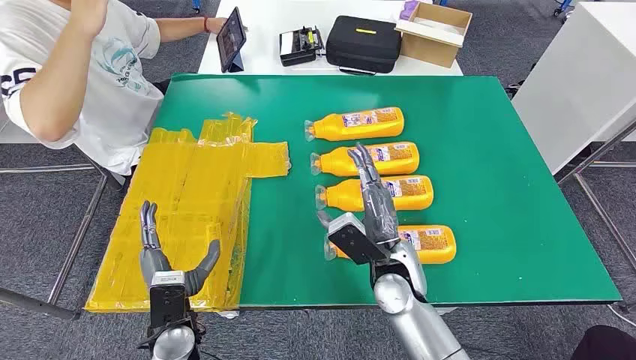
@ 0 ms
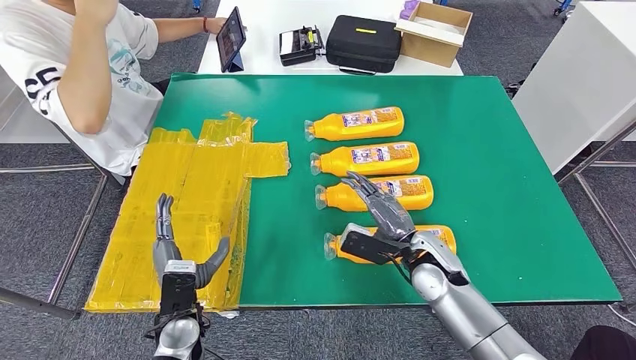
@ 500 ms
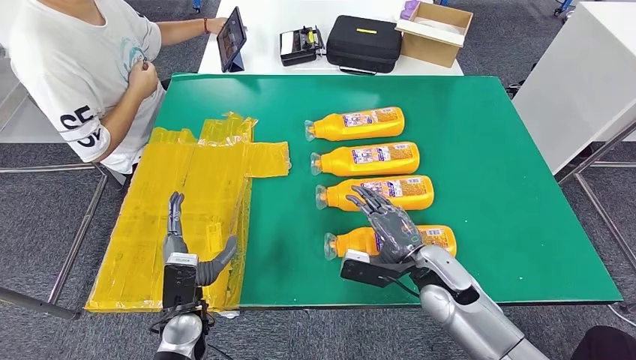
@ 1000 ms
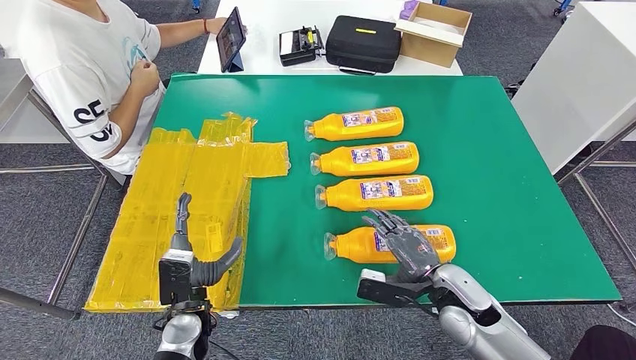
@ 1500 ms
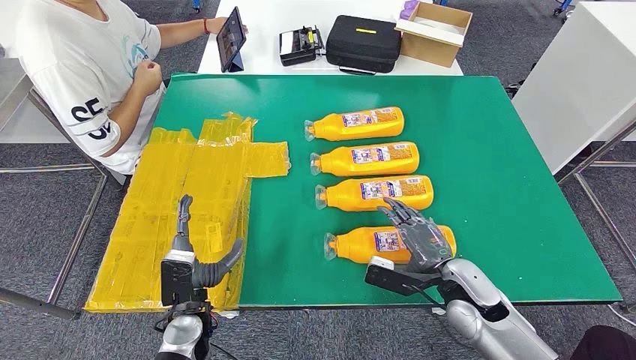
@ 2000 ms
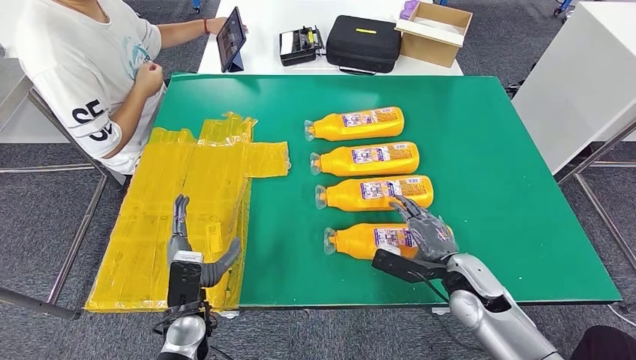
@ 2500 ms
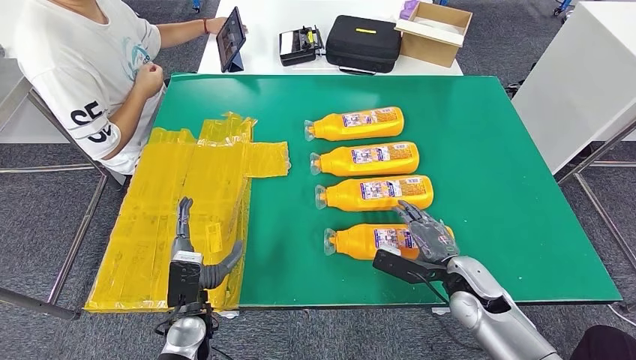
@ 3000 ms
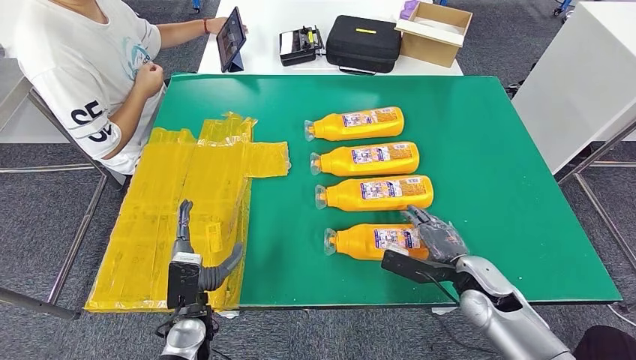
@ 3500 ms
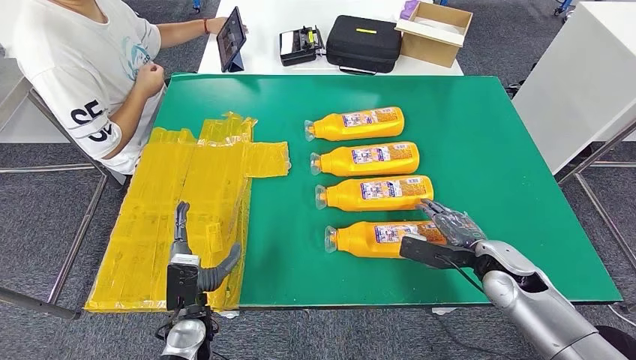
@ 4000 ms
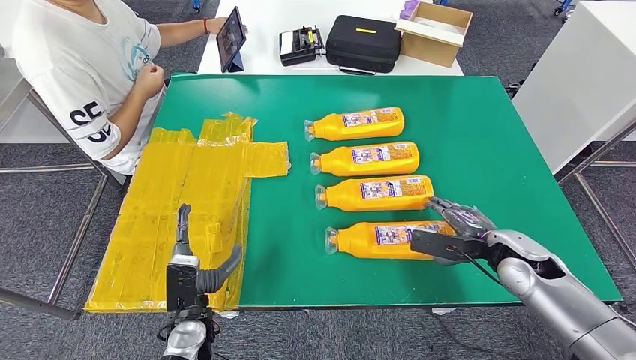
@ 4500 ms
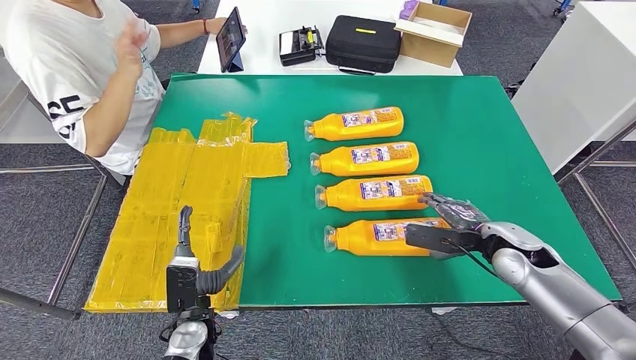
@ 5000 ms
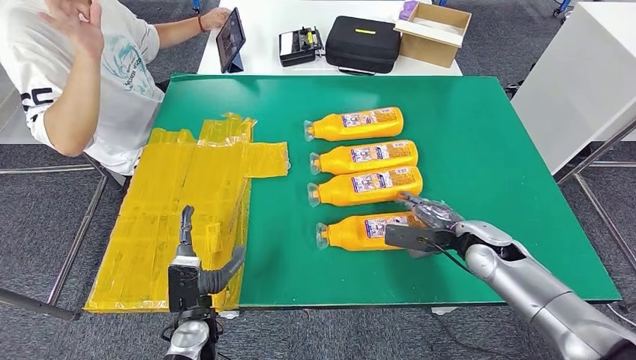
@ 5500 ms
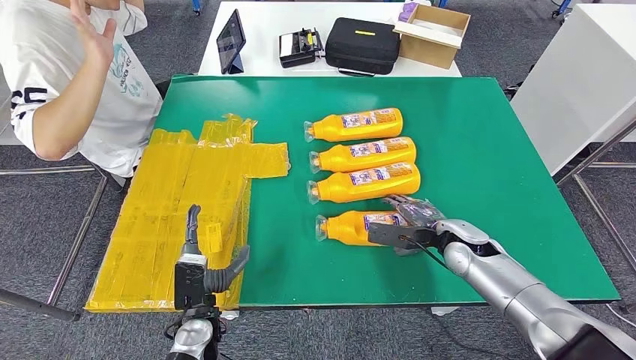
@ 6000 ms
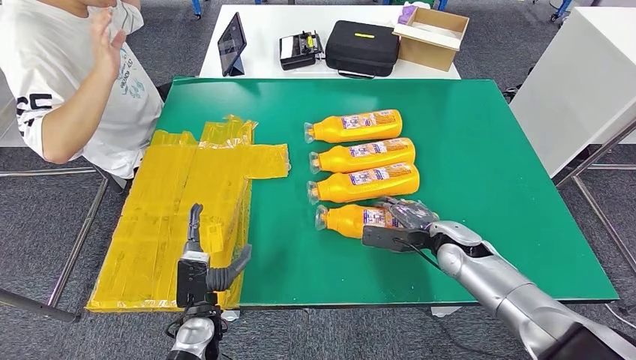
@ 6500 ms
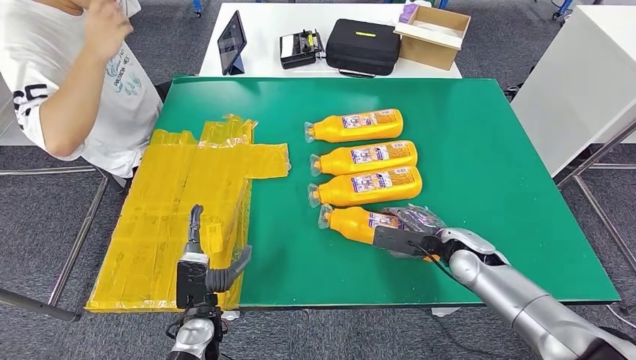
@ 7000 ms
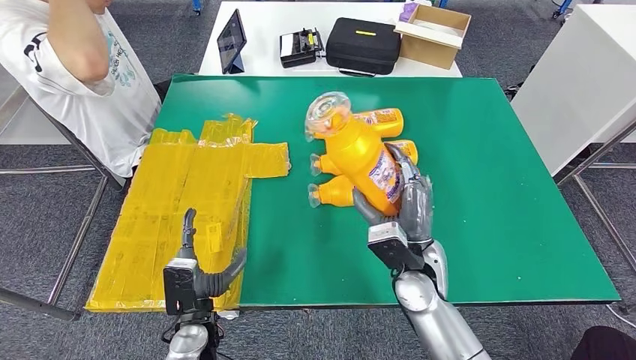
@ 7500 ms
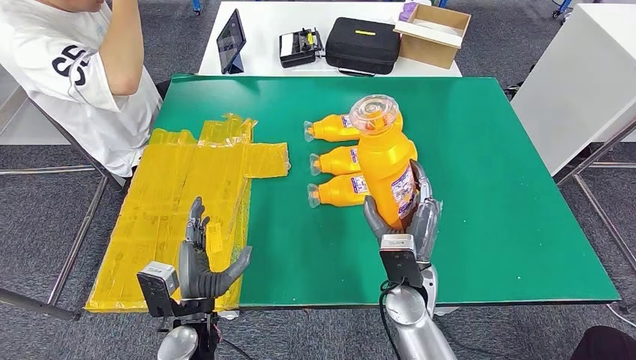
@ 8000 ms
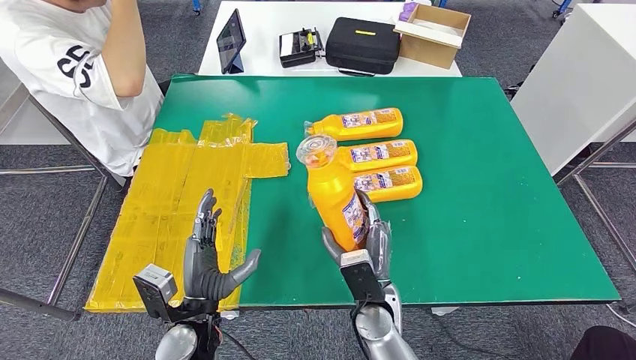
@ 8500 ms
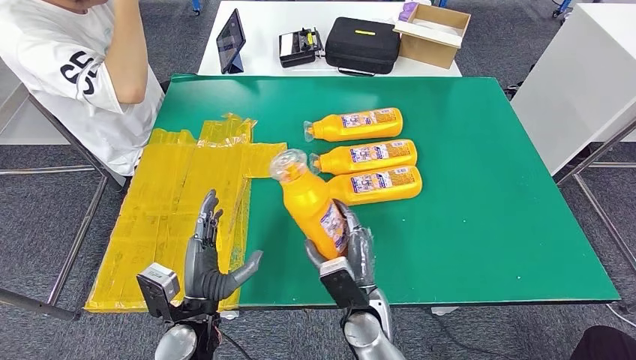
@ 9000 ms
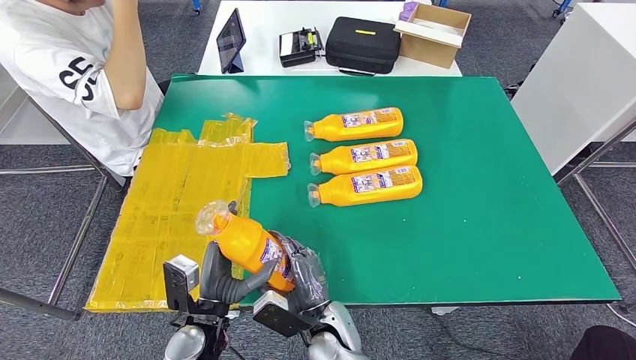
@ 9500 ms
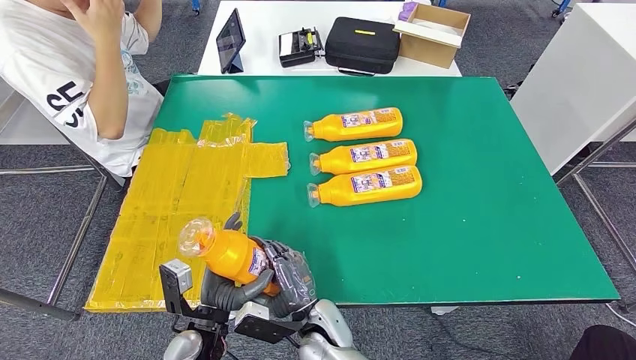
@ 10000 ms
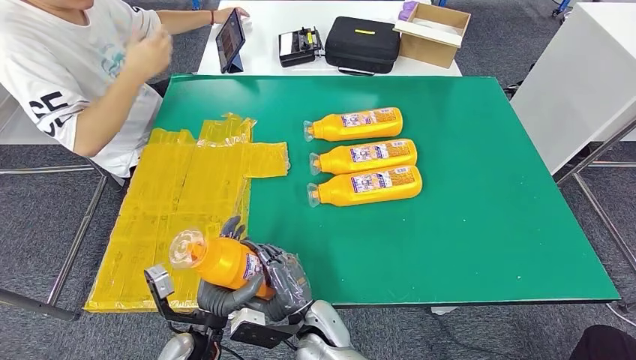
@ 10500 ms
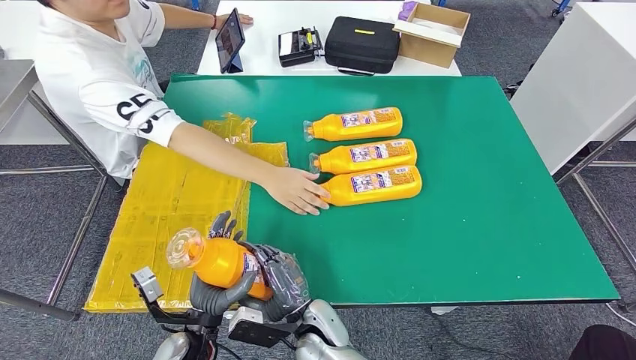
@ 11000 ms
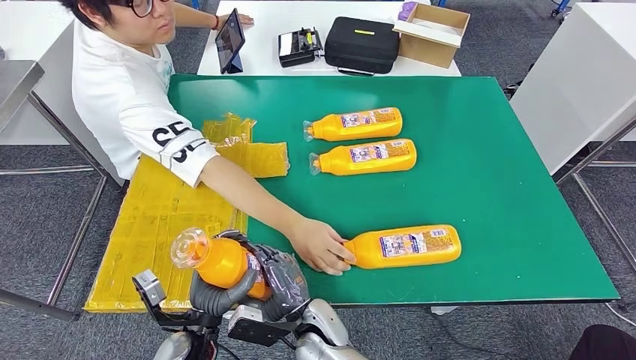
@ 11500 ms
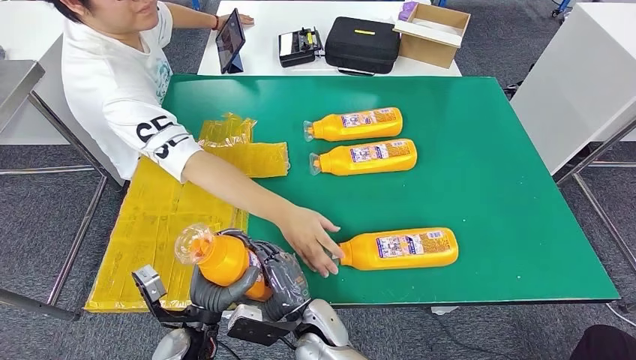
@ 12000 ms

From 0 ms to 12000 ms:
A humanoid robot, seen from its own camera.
Step, from 0 ms to 10500 ms: Take the fast-moving consumer goods bottle from the table.
From 2000 ms to 4000 ms: The right hand heads to the right, covering about 5 cm.
From 6000 ms to 8000 ms: The right hand shifts roughly 15 cm to the left and backward.
From 8000 ms to 10000 ms: The right hand shifts roughly 15 cm to the left and downward.

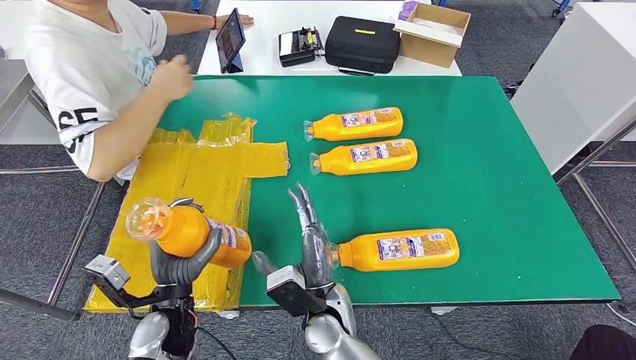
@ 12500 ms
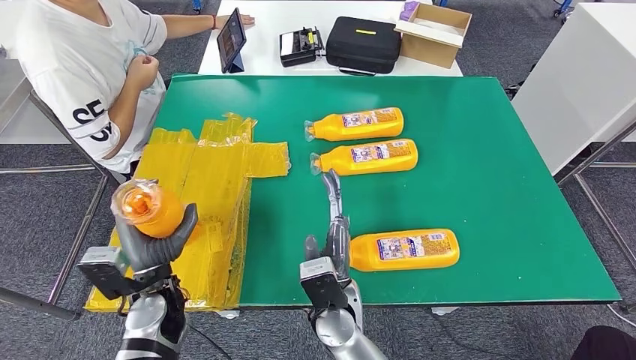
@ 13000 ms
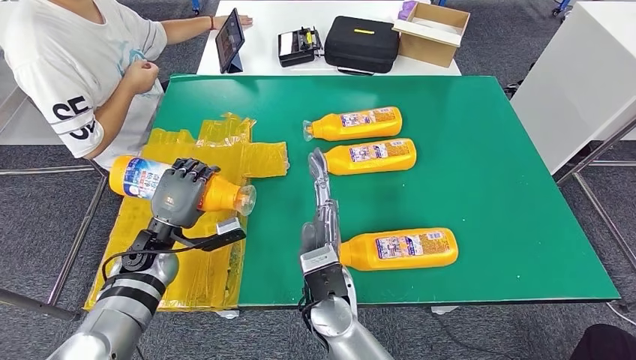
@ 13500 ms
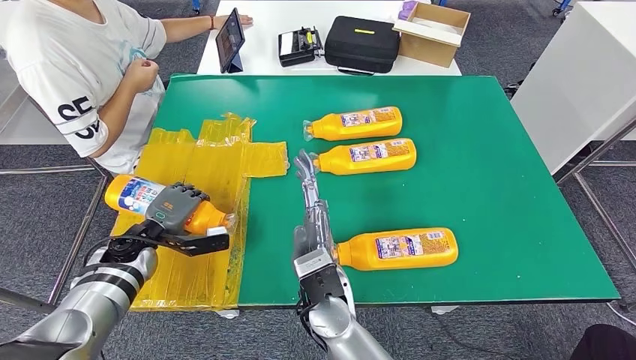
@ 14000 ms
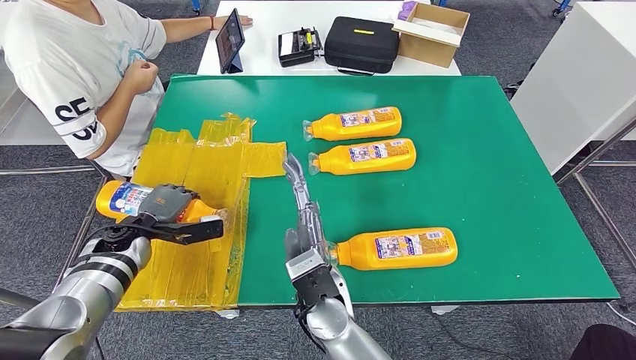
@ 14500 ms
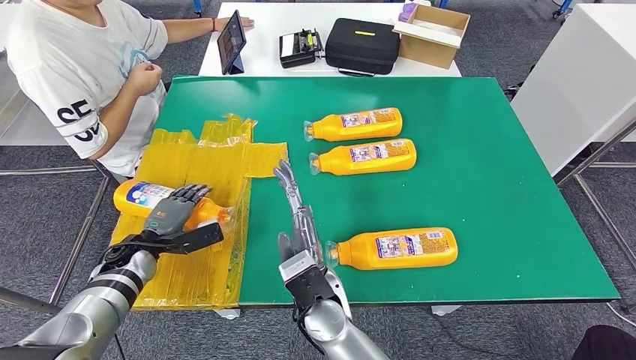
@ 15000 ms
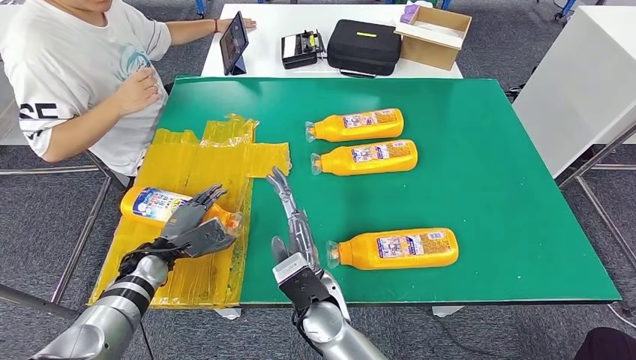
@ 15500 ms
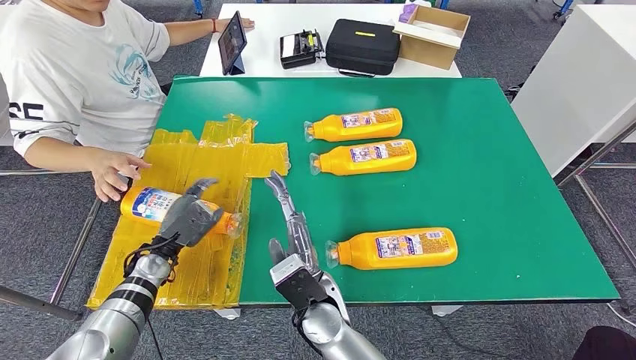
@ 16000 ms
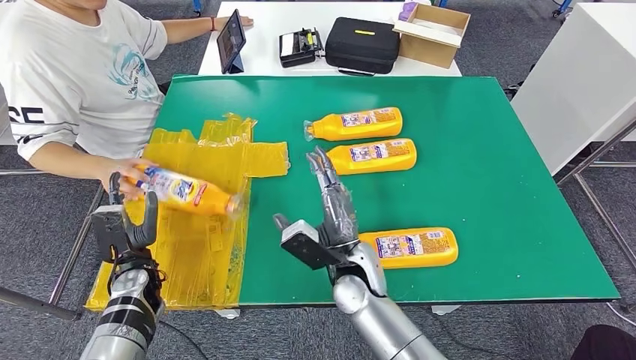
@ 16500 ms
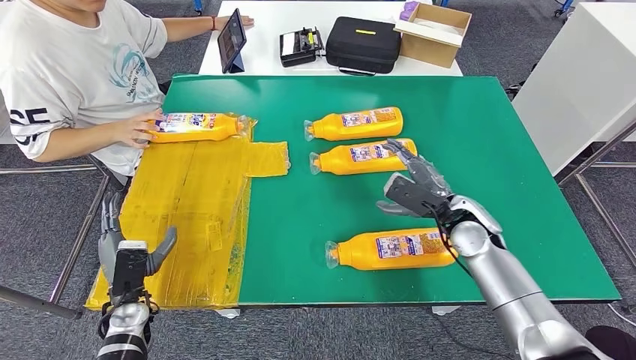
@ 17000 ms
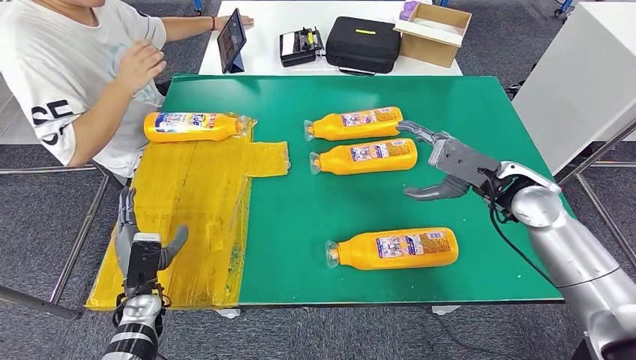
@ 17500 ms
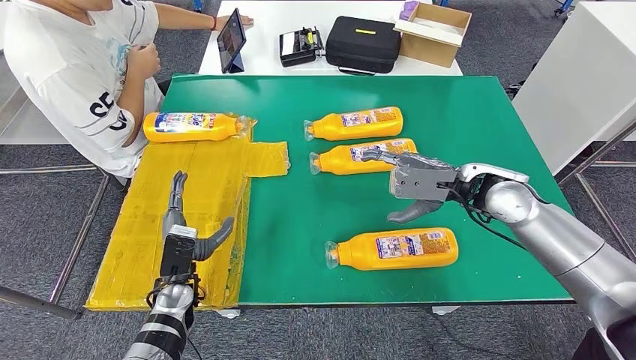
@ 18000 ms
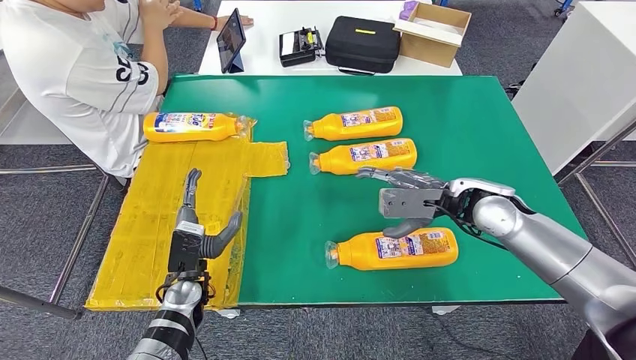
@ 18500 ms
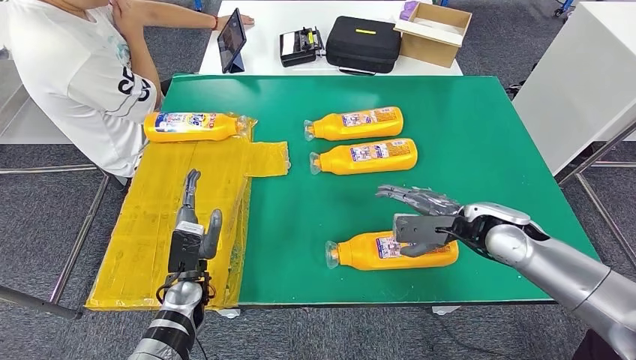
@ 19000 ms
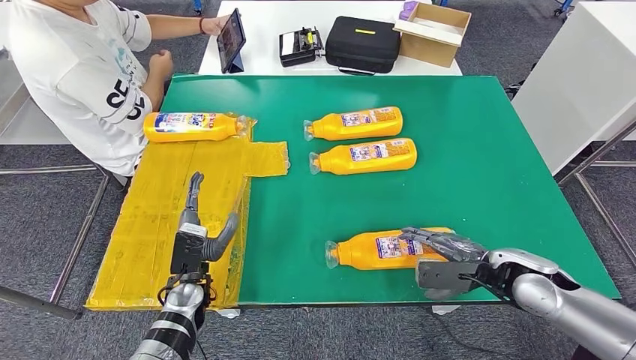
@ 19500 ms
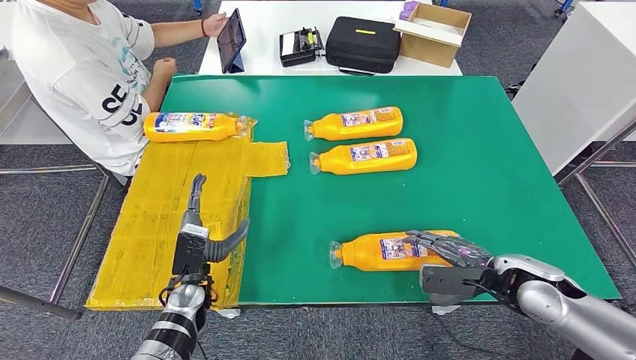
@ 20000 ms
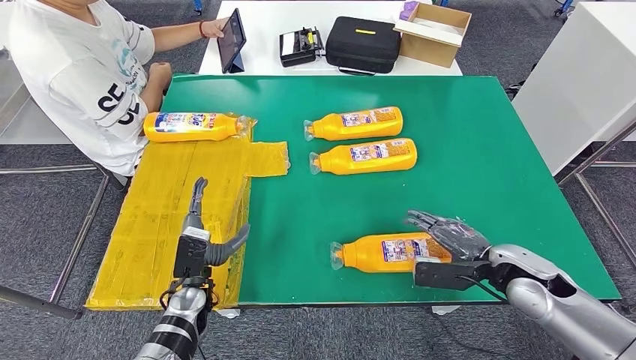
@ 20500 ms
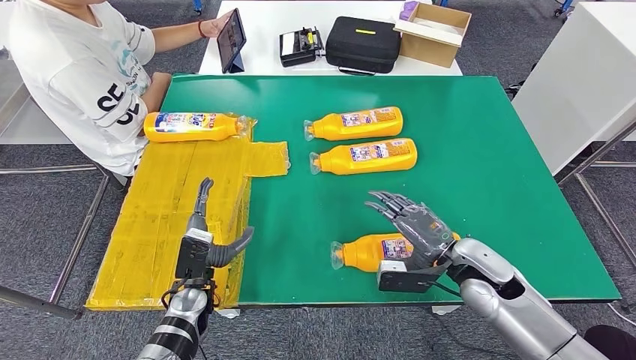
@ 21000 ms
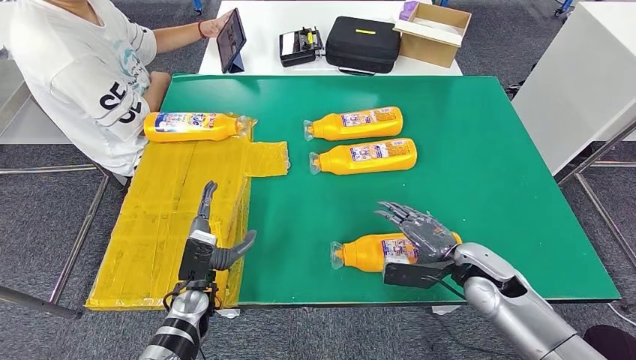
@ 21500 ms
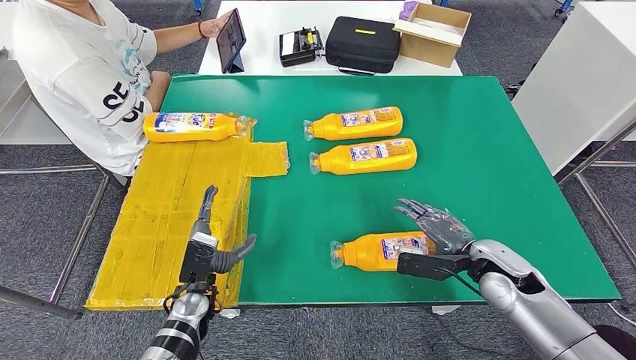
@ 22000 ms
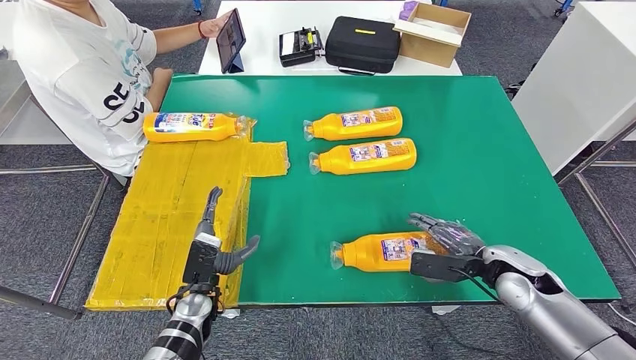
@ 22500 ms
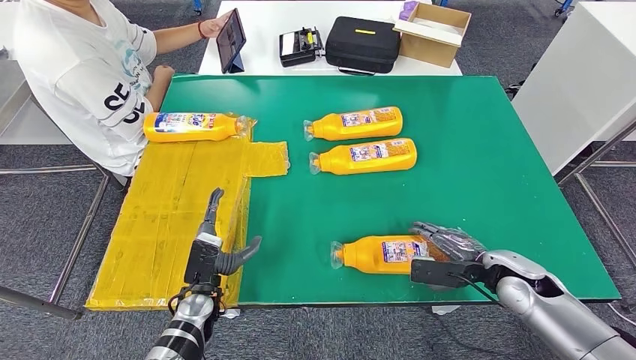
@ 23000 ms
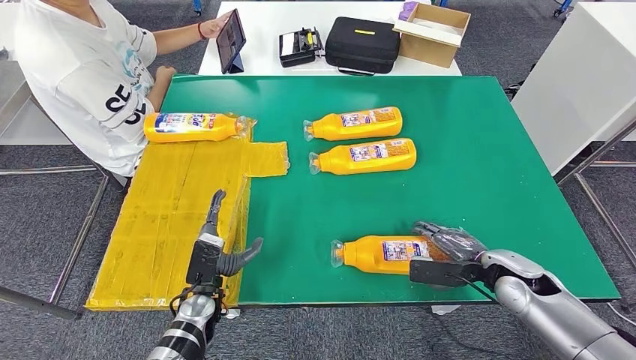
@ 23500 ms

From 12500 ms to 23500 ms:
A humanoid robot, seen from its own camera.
Step, from 12500 ms to 18000 ms: Flip the fast-moving consumer goods bottle to the front side.
From 18000 ms to 20000 ms: The right hand is displaced backward, downward and to the right by roughly 15 cm.
From 20000 ms to 21500 ms: The right hand goes about 5 cm to the left.
From 21500 ms to 23500 ms: The right hand goes about 5 cm to the right.
